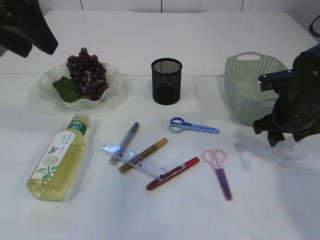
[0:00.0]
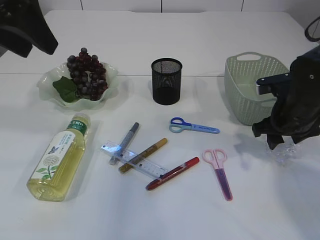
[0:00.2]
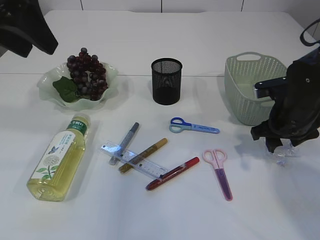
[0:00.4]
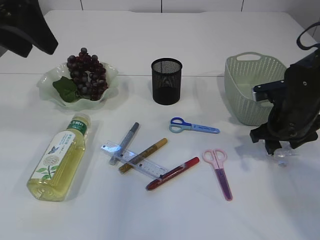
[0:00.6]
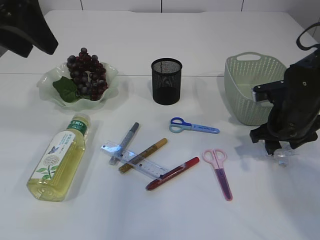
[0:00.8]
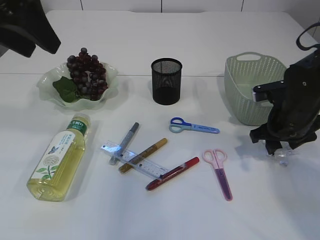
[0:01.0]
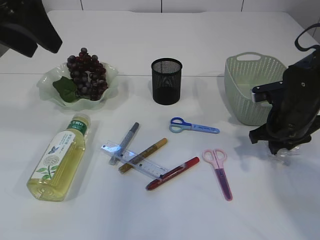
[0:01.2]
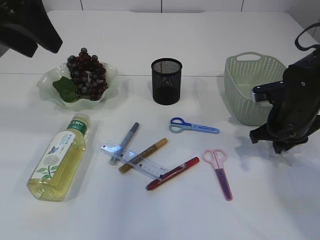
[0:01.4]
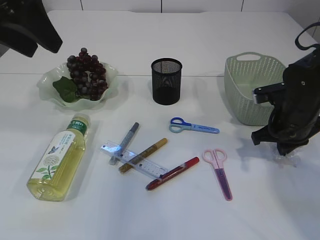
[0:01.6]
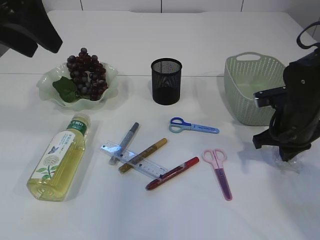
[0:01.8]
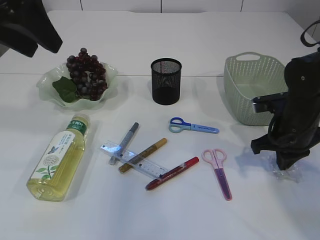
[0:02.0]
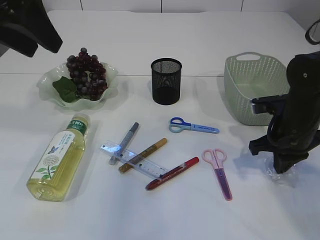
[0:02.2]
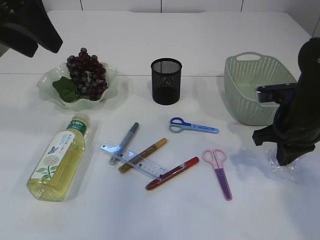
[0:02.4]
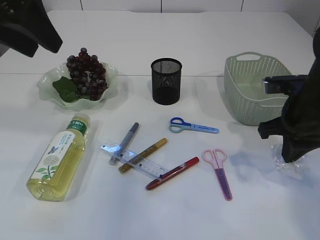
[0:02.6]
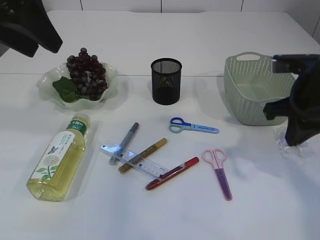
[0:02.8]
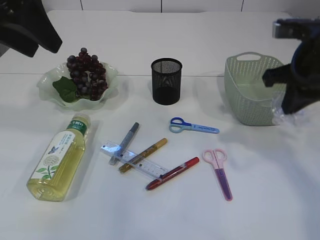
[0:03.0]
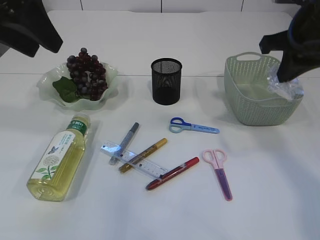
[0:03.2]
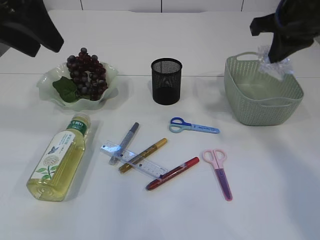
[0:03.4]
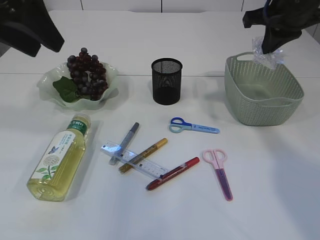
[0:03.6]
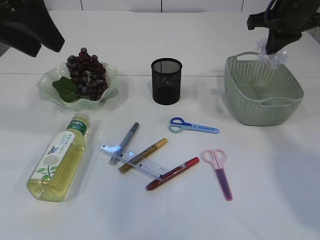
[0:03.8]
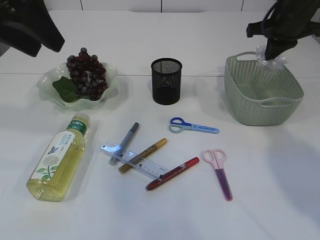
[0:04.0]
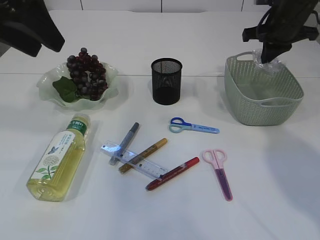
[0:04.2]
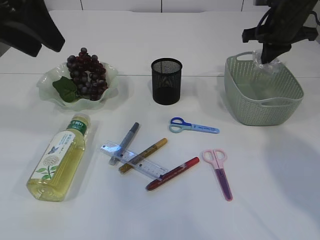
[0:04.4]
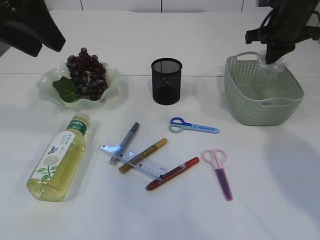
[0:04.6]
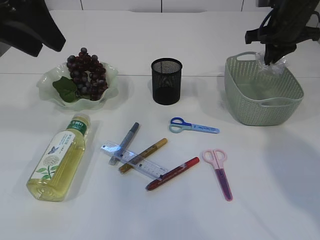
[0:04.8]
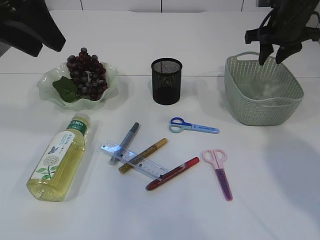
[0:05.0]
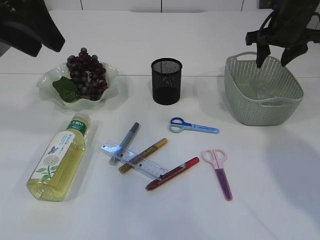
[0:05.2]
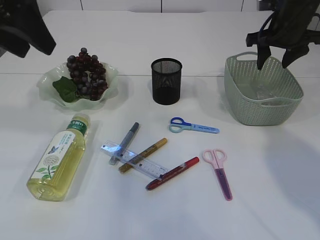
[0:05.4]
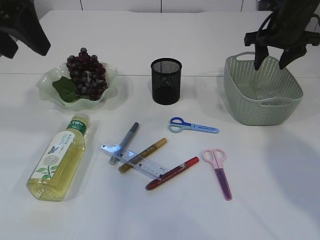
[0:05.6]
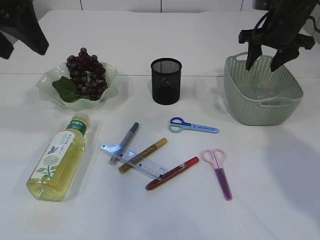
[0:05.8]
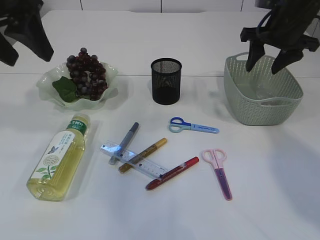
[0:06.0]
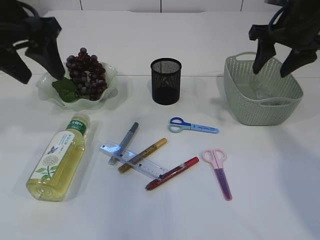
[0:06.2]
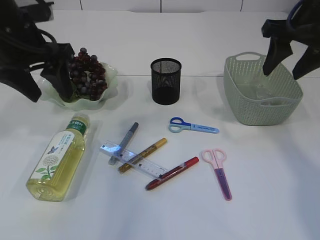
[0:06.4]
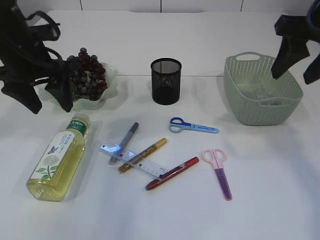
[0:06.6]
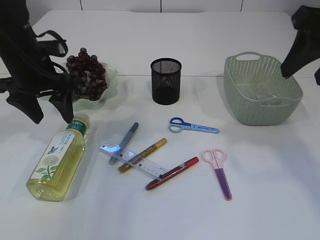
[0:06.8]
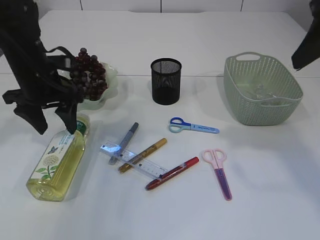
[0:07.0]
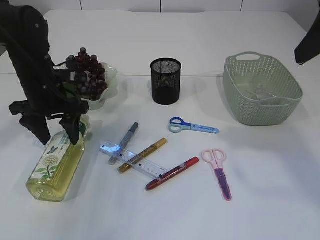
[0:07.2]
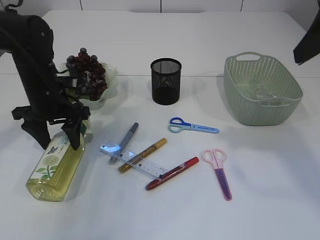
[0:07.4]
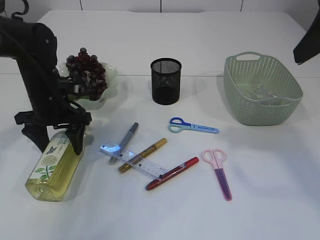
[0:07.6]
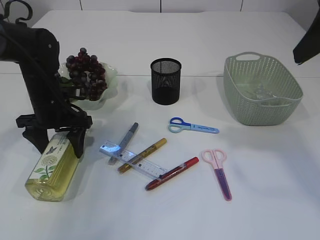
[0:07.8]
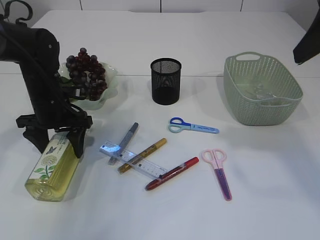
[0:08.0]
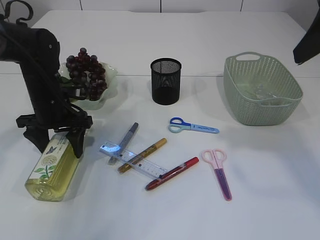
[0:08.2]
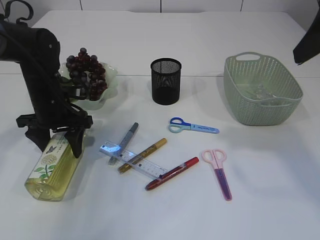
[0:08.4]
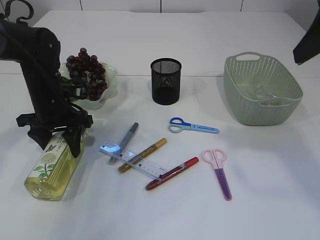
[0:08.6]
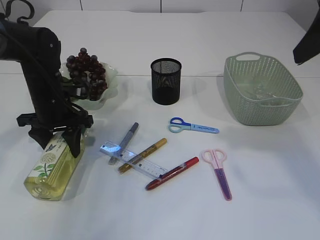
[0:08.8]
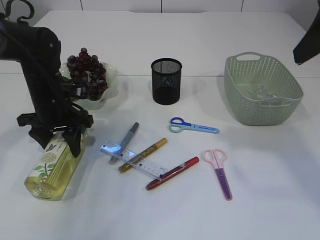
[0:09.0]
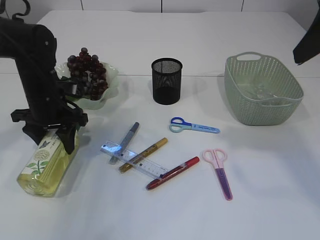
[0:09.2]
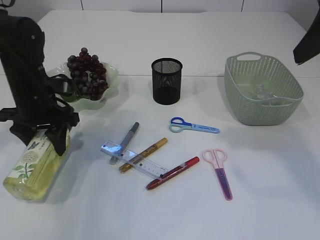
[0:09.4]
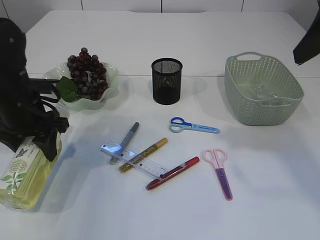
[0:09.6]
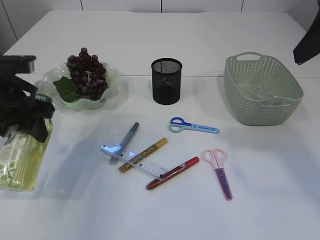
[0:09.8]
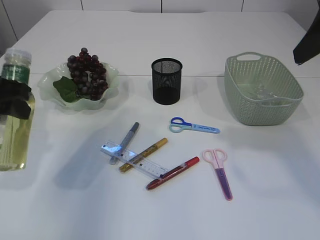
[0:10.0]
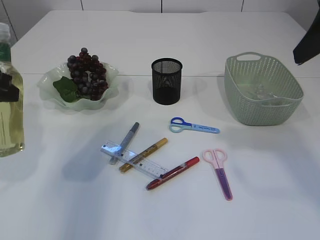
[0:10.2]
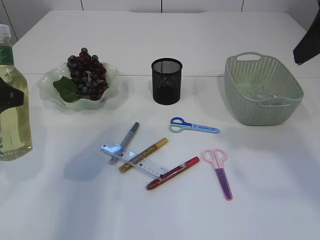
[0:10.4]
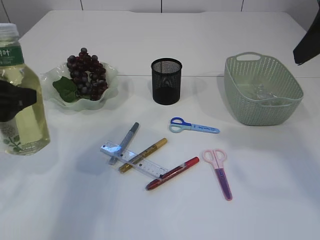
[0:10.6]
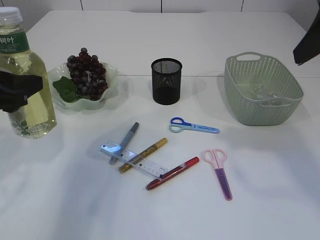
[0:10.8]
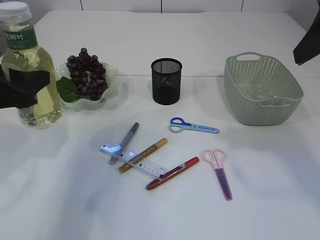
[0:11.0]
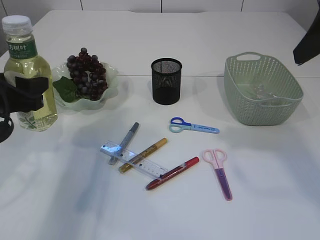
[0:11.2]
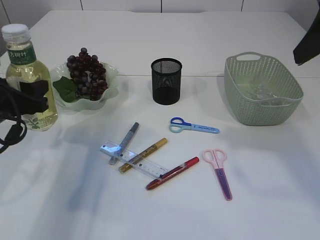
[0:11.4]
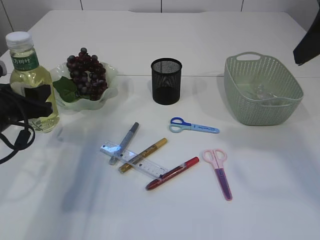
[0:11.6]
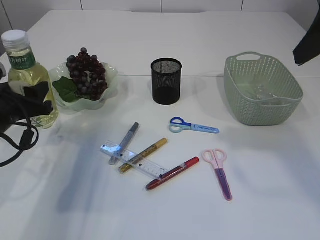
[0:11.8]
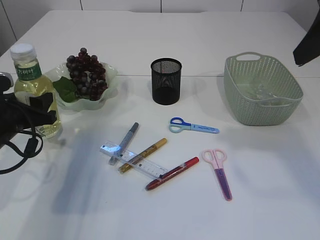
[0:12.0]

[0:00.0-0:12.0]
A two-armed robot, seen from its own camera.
Step, 0:00.0 to 0:03.0: Pick up the plastic.
Step, 0:03.2 to 0:06.2: Place the plastic in the basket.
Step, 0:06.4 to 0:10.4: Pick up the bottle with the left arm.
0:00.0 to 0:01.6: The right gripper closes.
0:01.6 to 0:03.0: The right gripper goes about 15 cm upward.
0:03.0 to 0:04.4: The right gripper moves forward, approximately 15 cm.
0:04.4 to 0:06.0: The right gripper opens its fingers.
0:06.0 to 0:07.6: The right gripper is displaced backward and upward by about 25 cm, while the left gripper shifts roughly 20 cm downward.
0:07.6 to 0:09.0: Neither gripper changes place.
0:09.0 to 0:10.4: The left gripper shifts about 20 cm backward and upward.
0:10.4 to 0:12.0: The left gripper shifts some 15 cm downward and forward.

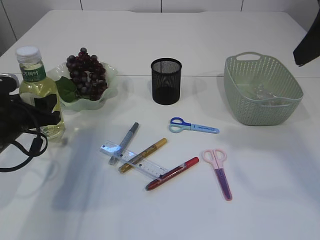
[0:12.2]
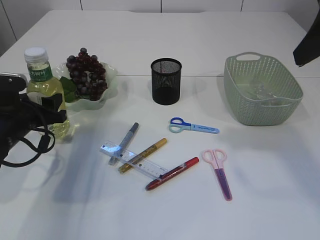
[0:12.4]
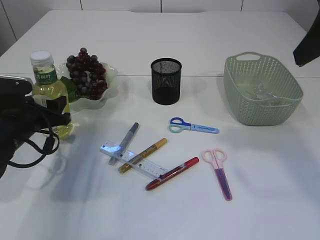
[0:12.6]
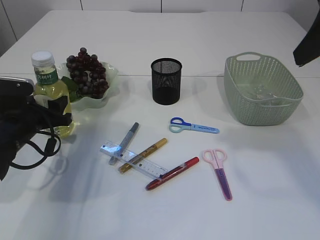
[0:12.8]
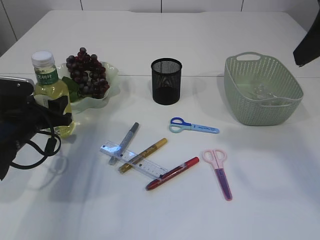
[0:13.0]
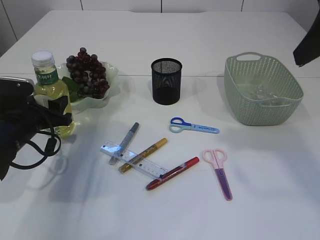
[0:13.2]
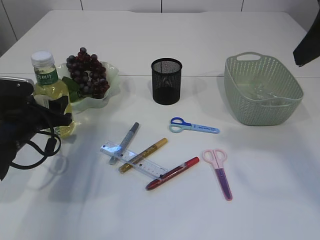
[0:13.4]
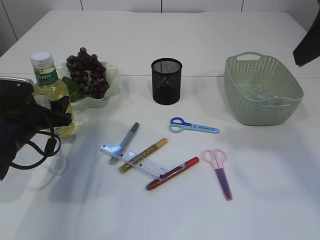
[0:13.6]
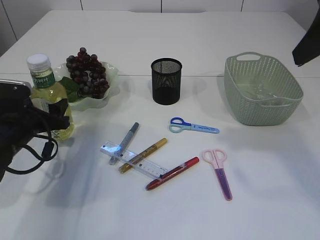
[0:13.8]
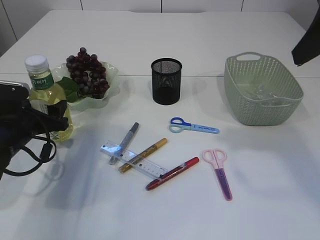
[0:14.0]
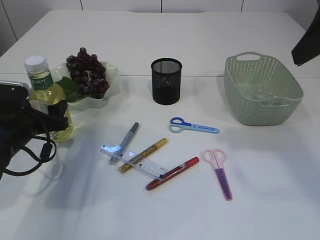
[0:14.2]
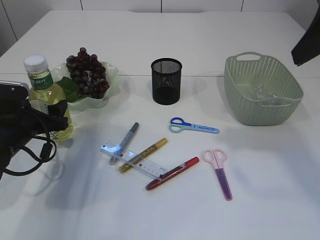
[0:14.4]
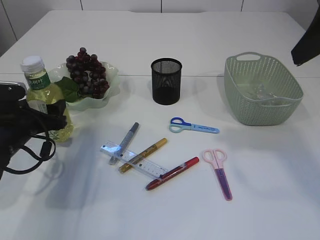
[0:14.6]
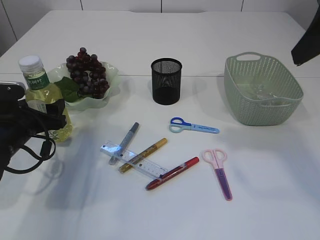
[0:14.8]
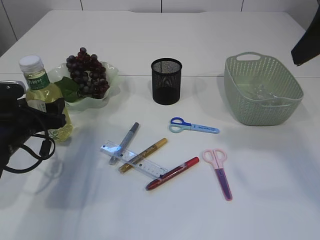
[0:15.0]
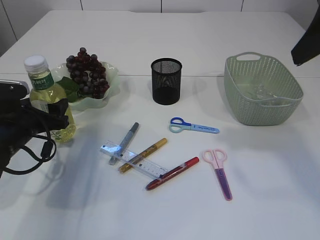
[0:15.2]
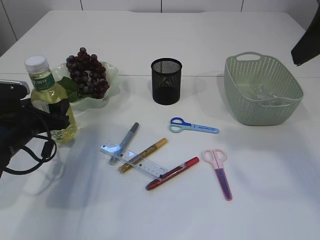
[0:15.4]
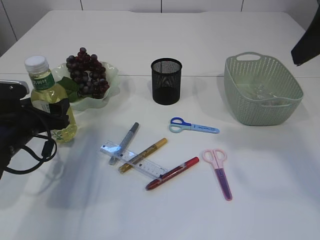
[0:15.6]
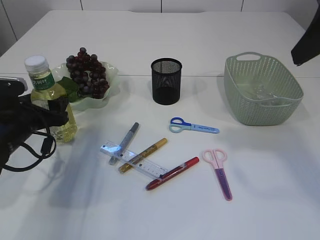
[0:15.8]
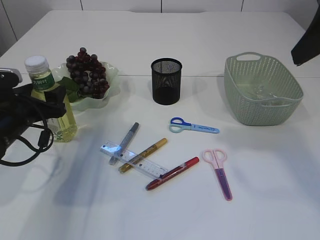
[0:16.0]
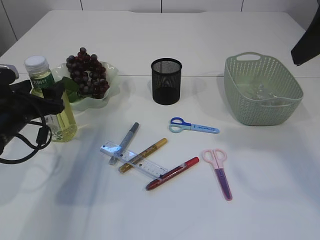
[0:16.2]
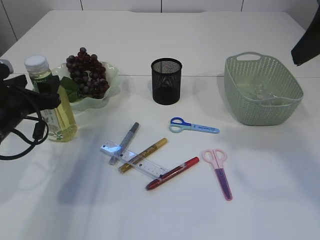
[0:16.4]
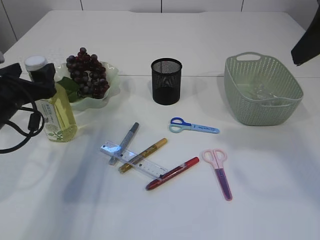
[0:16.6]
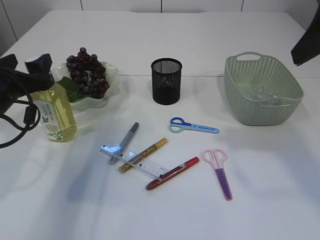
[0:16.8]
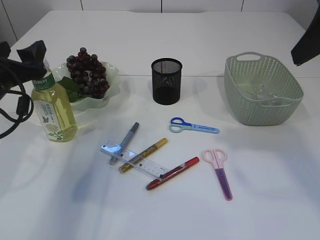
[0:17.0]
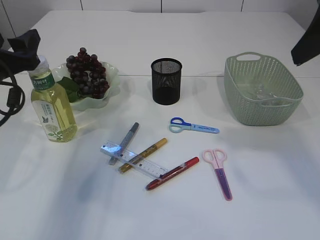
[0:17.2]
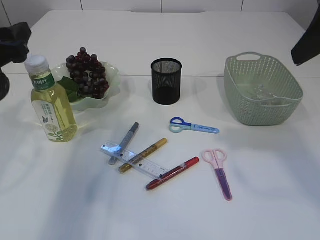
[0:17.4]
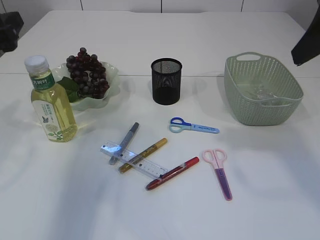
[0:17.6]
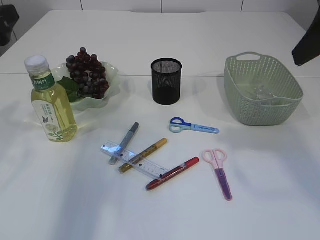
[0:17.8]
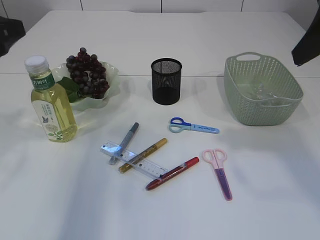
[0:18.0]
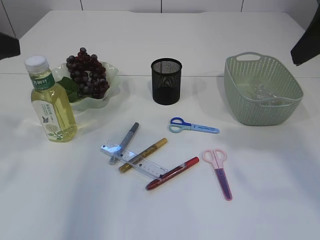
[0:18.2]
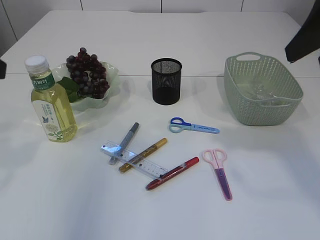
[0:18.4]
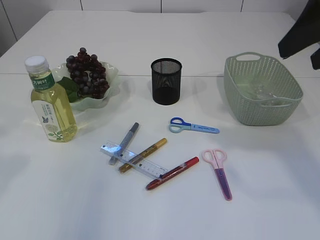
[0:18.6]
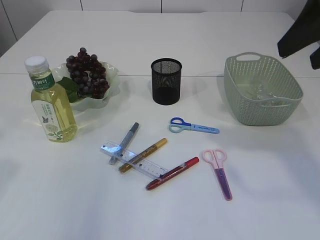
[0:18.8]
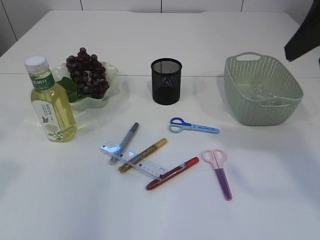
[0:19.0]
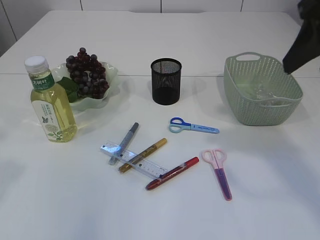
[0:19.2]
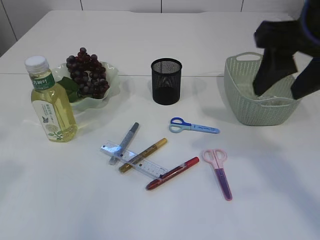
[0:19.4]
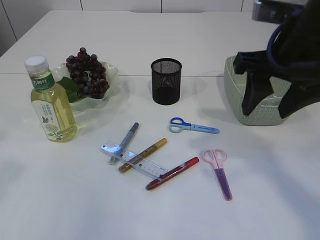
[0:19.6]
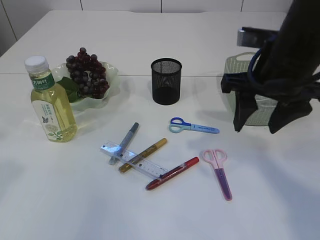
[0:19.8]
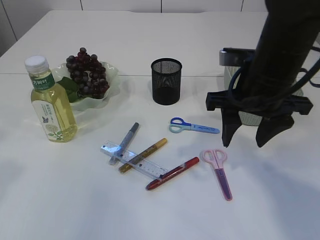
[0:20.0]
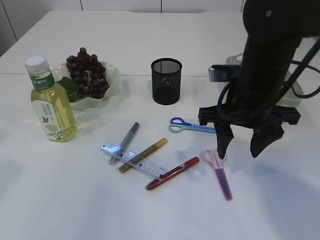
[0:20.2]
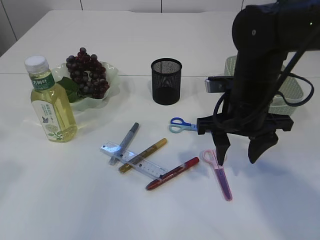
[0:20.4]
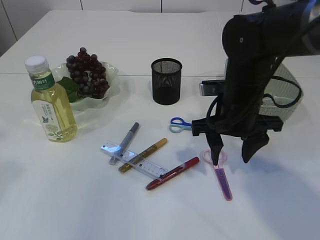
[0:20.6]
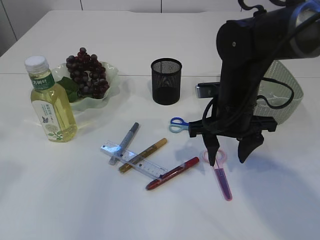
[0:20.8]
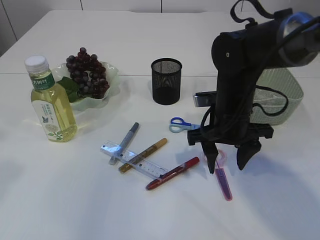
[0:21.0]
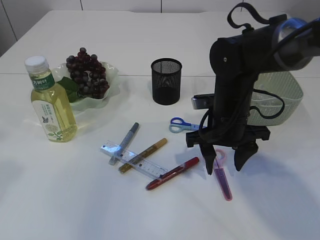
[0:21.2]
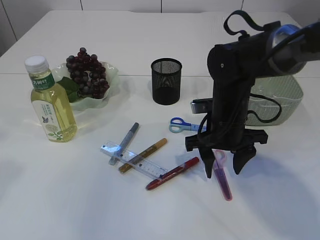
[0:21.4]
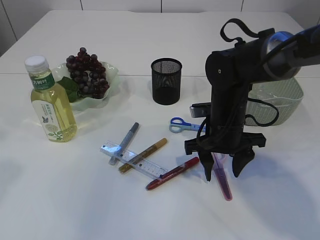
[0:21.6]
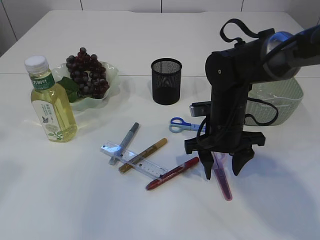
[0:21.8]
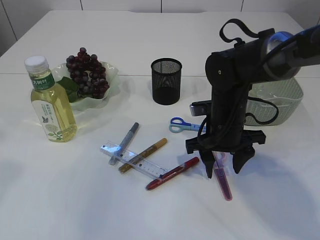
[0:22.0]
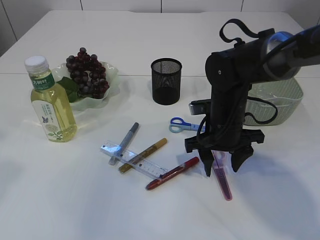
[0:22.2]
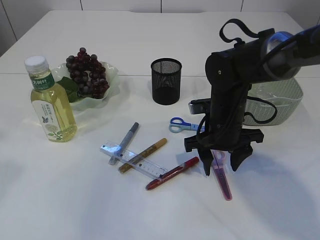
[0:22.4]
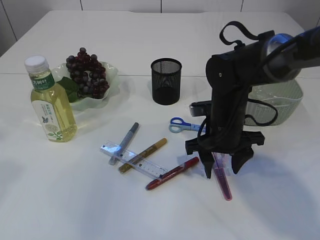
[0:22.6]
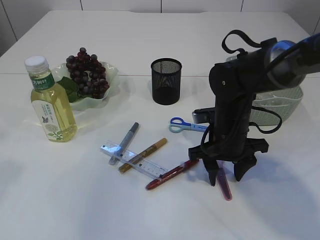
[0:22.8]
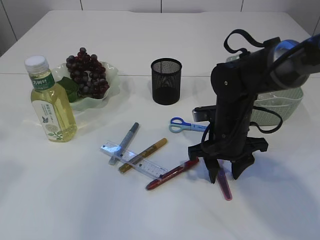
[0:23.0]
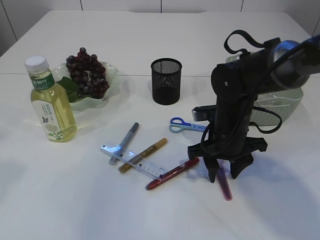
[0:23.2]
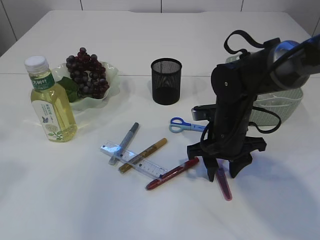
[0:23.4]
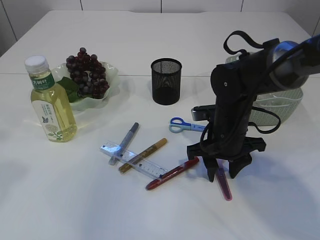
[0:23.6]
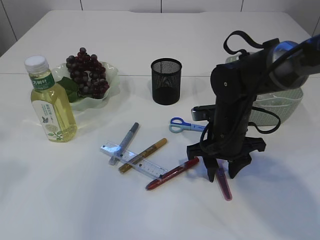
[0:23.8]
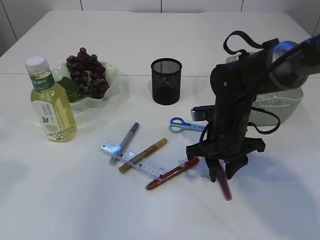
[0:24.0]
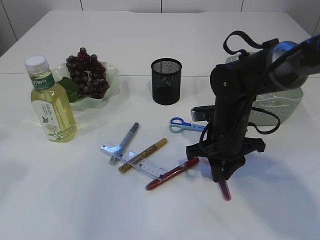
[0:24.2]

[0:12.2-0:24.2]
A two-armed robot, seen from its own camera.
Step, 0:12.2 to 0:17.0: Place the bottle.
0:12.2 to 0:13.8: The grippers stay close to where they were, moving slightly.
0:13.8 to 0:15.2: The two grippers keep their place.
0:15.2 to 0:16.6: The left gripper heads upward, covering some 5 cm.
0:16.6 to 0:18.2: The left gripper moves upward and backward, some 20 cm.
0:18.2 to 0:19.8: The right gripper moves downward, to the left and forward, some 15 cm. The left gripper moves backward and upward, some 10 cm.
0:19.8 to 0:21.2: The right gripper heads downward, covering about 15 cm.
0:21.2 to 0:22.6: The grippers move only a little.
0:22.6 to 0:24.2: The right gripper closes its fingers.
